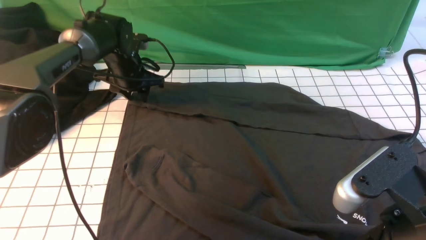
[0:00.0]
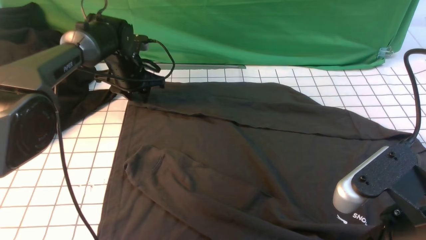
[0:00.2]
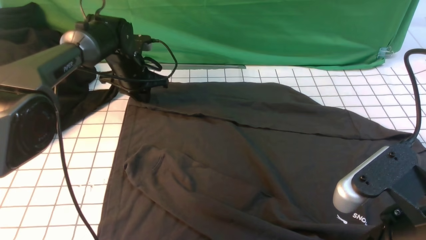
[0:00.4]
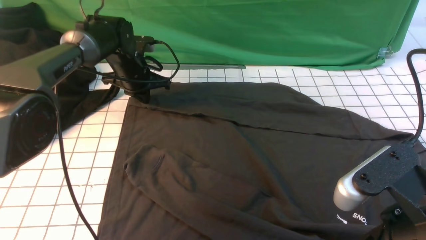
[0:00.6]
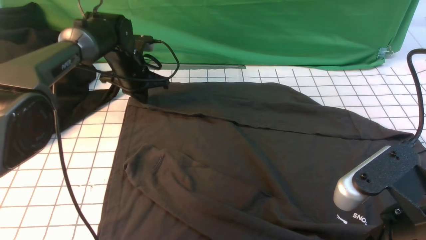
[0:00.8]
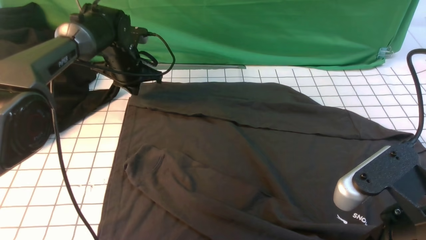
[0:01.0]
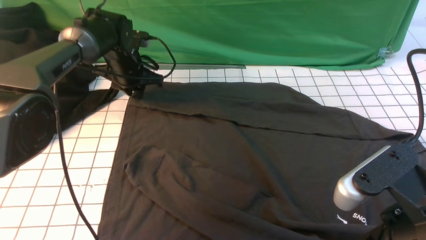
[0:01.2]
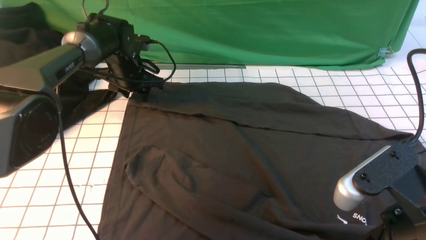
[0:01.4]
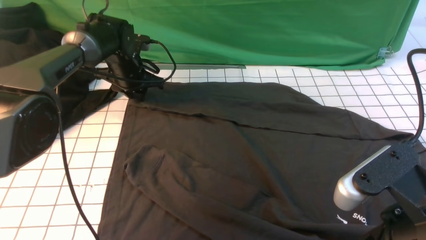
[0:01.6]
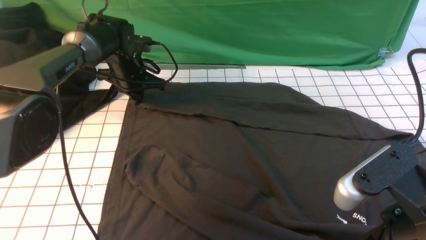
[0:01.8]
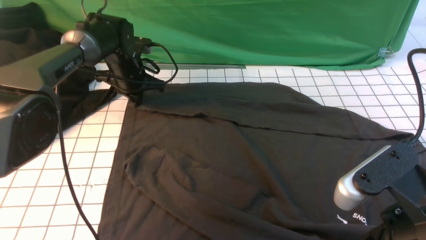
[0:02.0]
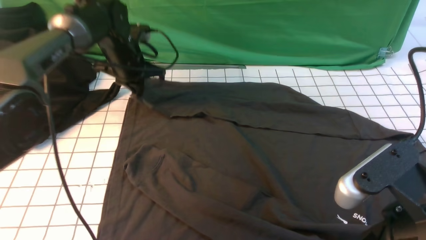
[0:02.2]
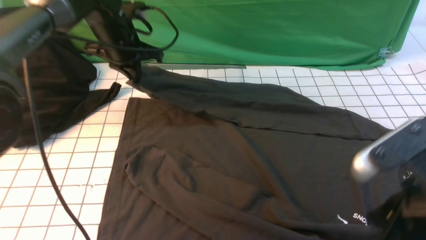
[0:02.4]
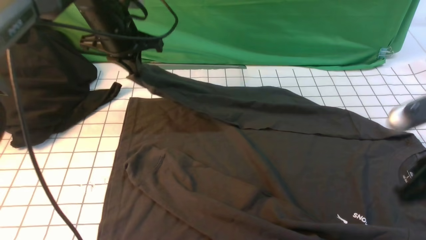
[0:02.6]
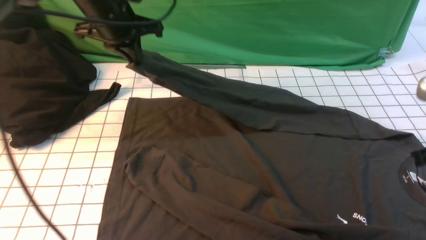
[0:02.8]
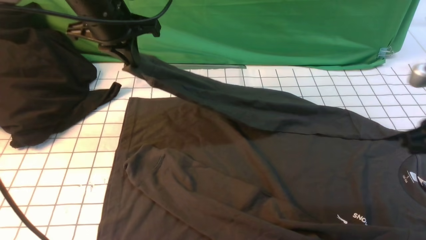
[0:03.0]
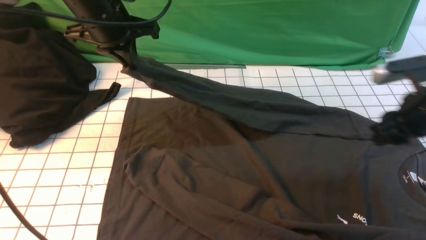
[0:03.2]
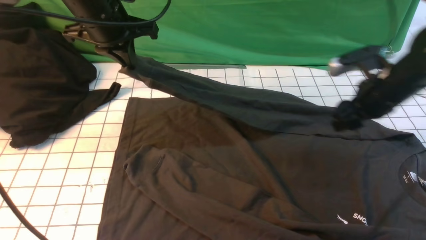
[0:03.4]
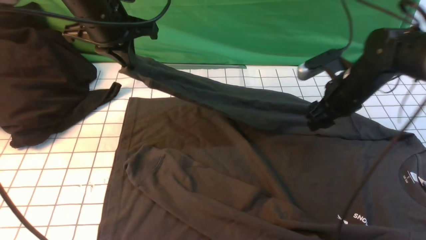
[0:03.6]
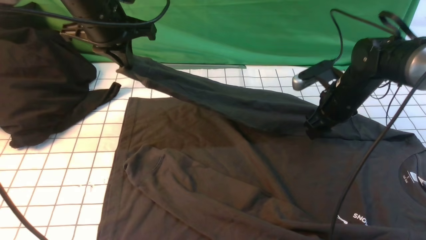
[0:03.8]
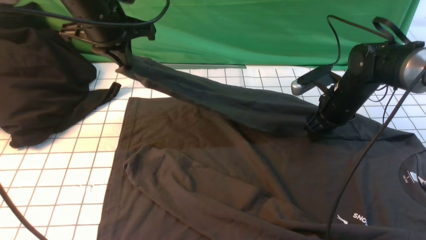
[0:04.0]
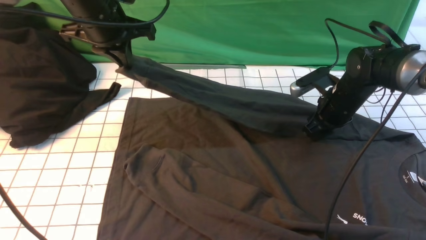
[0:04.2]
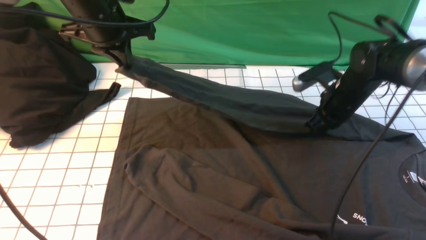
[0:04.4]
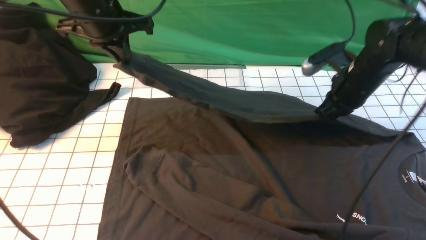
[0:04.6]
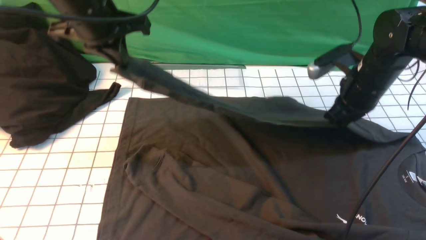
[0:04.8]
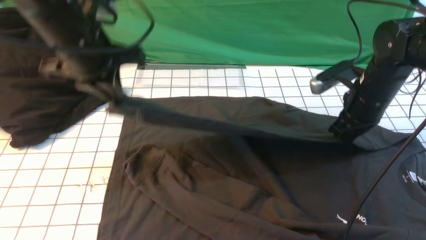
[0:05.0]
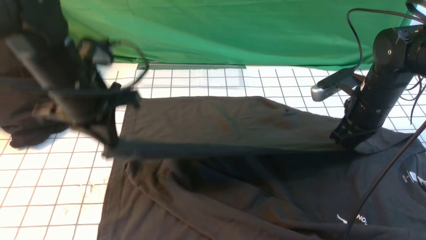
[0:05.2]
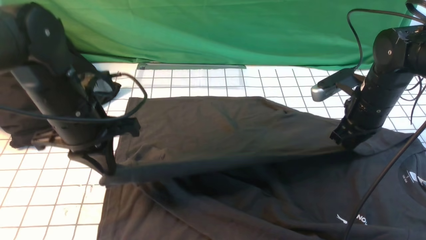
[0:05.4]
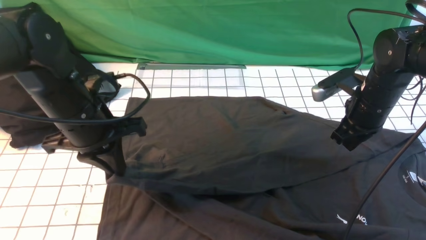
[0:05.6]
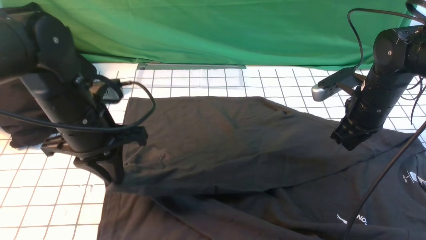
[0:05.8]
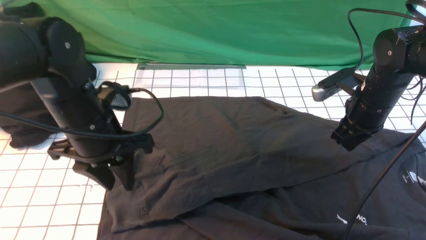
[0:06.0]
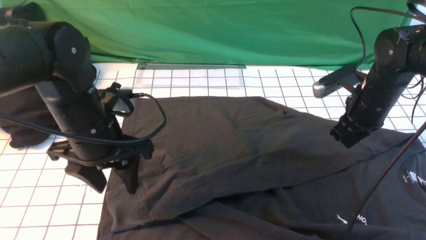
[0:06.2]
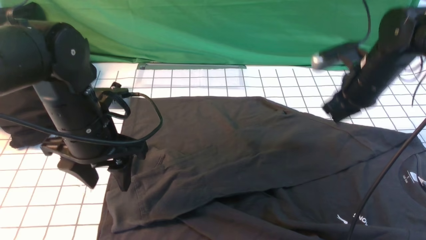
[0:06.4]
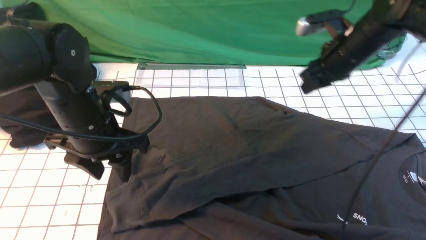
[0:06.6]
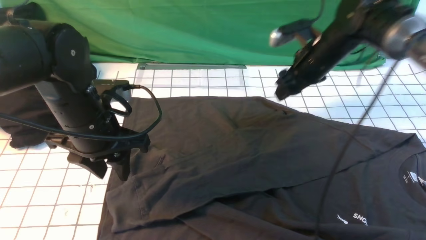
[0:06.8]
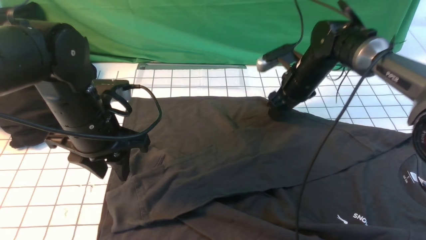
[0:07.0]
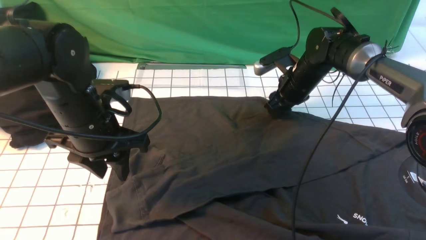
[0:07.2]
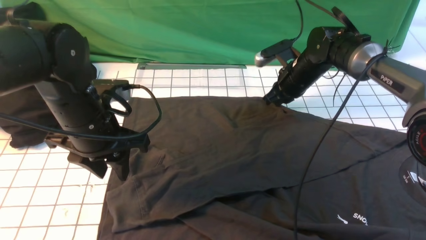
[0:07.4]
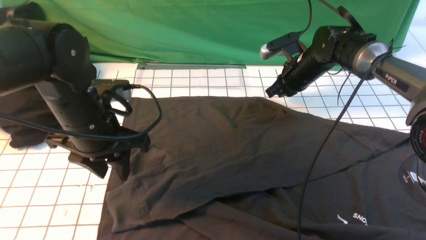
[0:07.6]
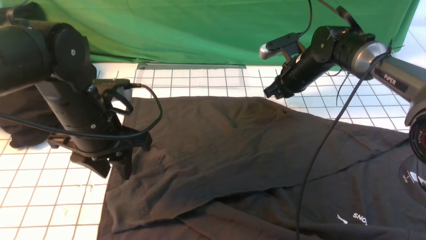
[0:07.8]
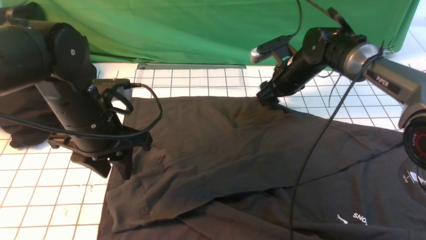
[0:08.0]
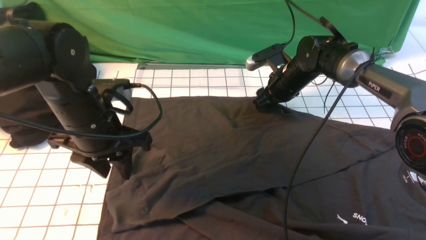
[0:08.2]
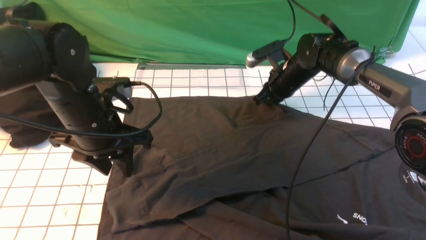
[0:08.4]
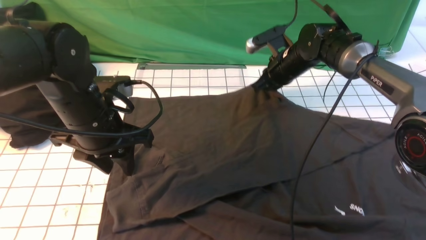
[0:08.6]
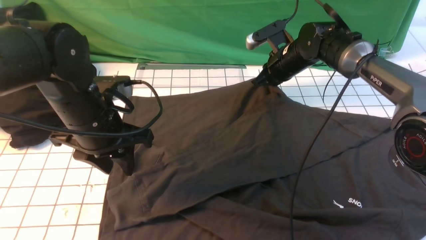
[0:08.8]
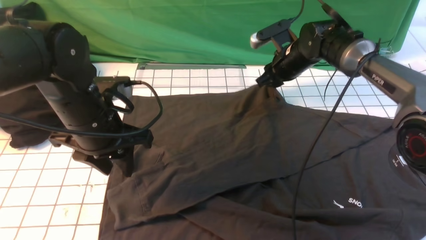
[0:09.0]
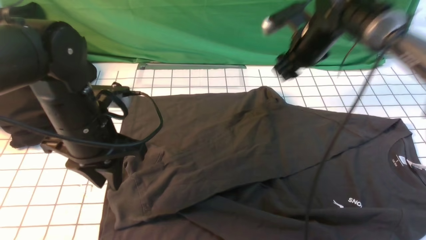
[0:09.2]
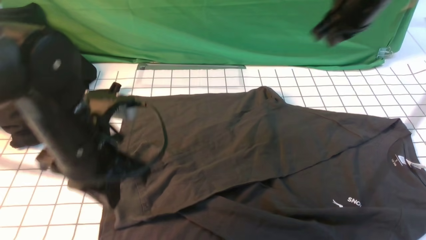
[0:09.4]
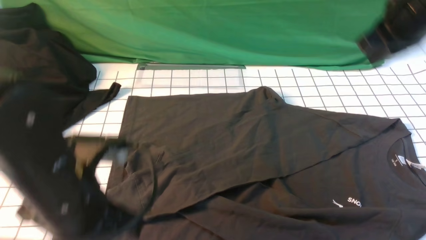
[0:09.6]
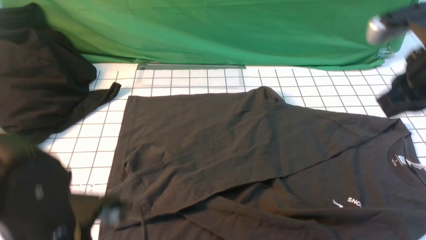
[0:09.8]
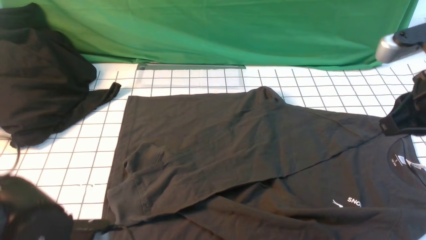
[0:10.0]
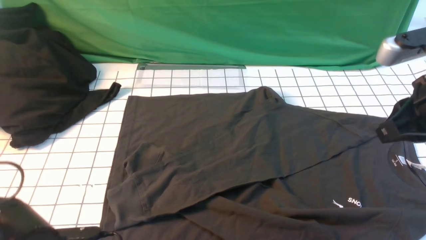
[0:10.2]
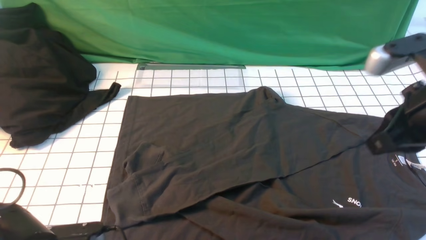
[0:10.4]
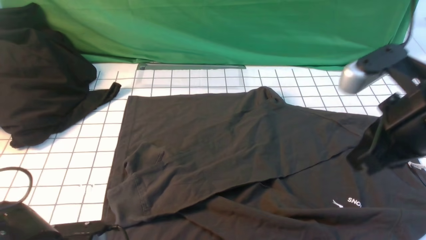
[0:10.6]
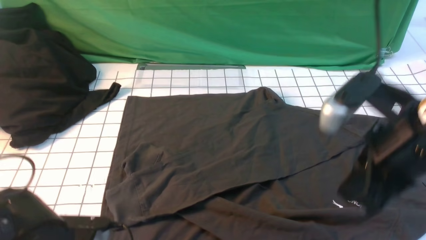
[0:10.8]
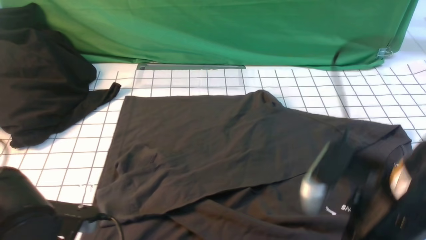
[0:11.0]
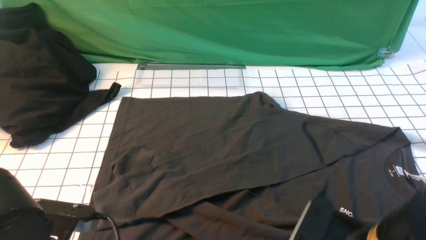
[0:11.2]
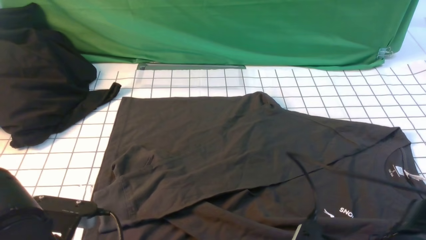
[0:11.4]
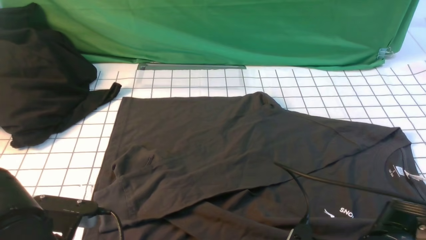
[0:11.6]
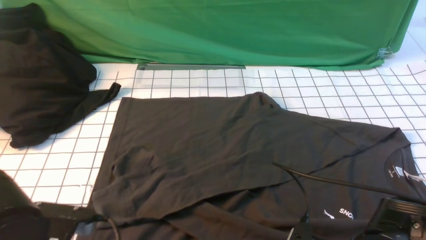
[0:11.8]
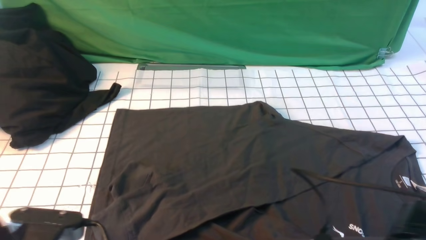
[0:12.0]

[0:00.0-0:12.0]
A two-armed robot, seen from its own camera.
Step, 0:02.0 to 0:05.8: use the left arm to drag and drop the cuff onto the cuff closest to the left arm.
Step, 0:06.0 to 0:11.6: use both arms simultaneously to clamp the lower edge of the clothing fabric.
0:00.0 to 0:01.6: The left gripper closes, then opens again.
0:01.6 to 0:03.0: The left gripper is displaced upward and backward by some 20 cm, and closes up. Meanwhile the right gripper travels forward and to the right by approximately 20 cm.
0:03.0 to 0:04.4: The right gripper shifts approximately 20 cm forward, downward and to the left, and opens and closes again.
0:04.4 to 0:06.0: The left gripper heads backward and downward, covering about 15 cm, and opens its fingers.
0:06.0 to 0:07.6: The right gripper goes approximately 15 cm forward and to the left, and opens, then closes again.
0:07.6 to 0:09.0: The right gripper opens.
0:09.0 to 0:10.4: The left gripper moves backward and downward, roughly 20 cm, and opens up. The right gripper heads backward and upward, covering about 30 cm, and closes up.
0:10.4 to 0:12.0: The right gripper is displaced downward and backward by approximately 20 cm, and opens and closes again. The left gripper goes some 5 cm upward, and closes its fingers.

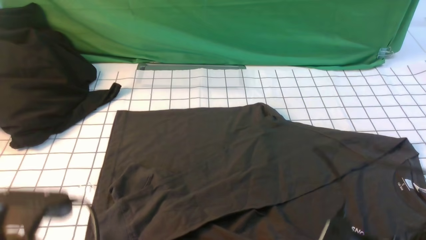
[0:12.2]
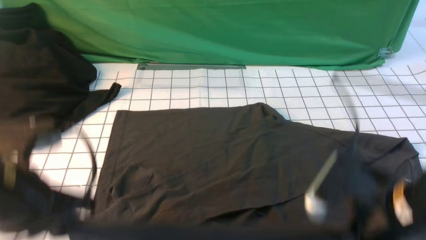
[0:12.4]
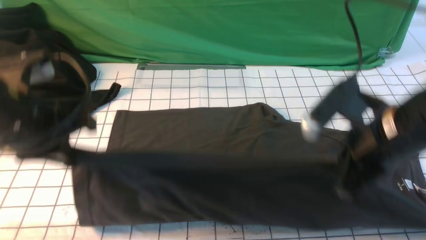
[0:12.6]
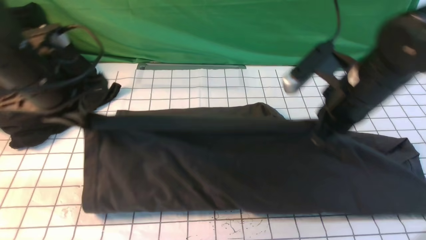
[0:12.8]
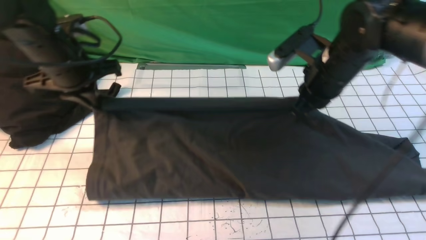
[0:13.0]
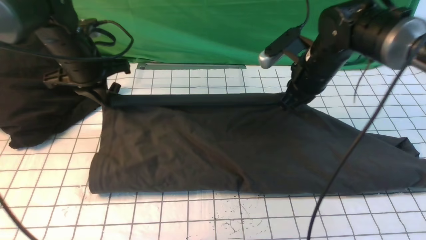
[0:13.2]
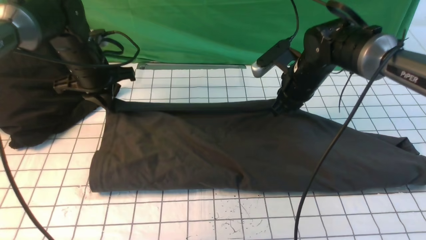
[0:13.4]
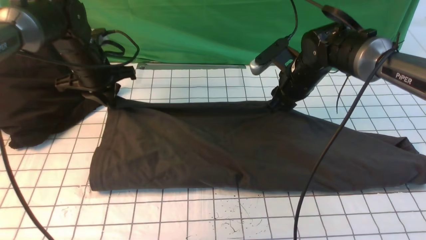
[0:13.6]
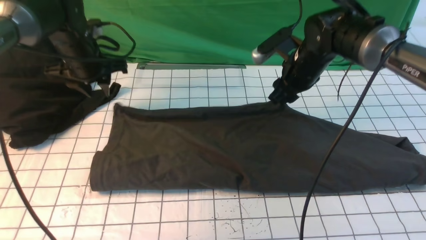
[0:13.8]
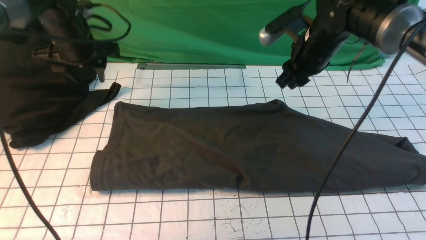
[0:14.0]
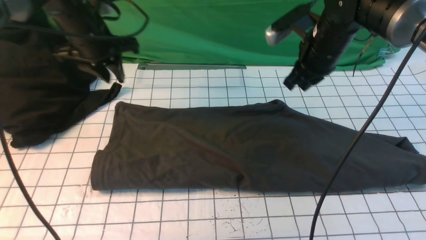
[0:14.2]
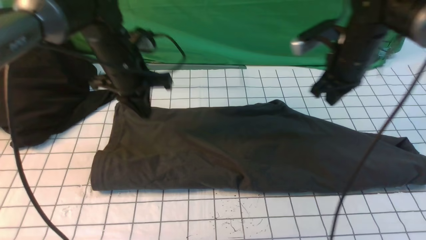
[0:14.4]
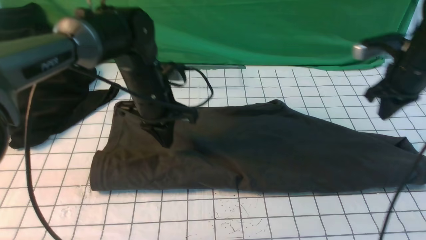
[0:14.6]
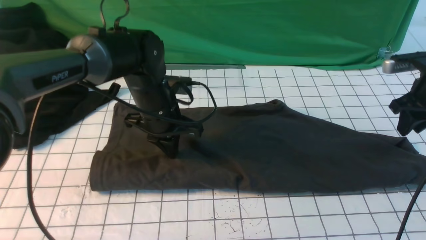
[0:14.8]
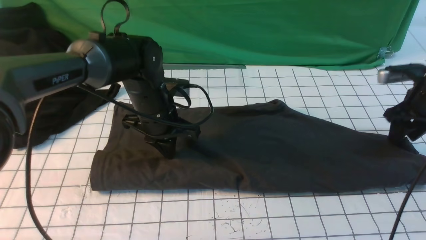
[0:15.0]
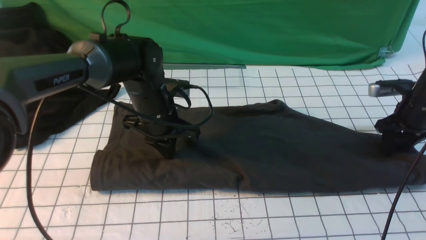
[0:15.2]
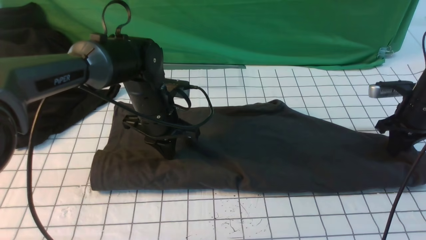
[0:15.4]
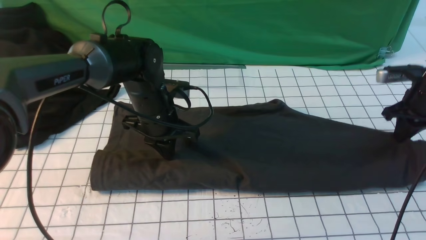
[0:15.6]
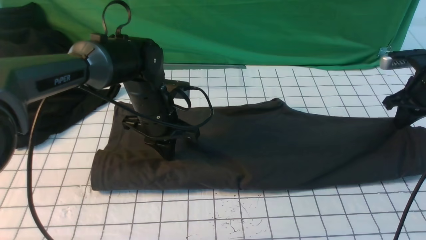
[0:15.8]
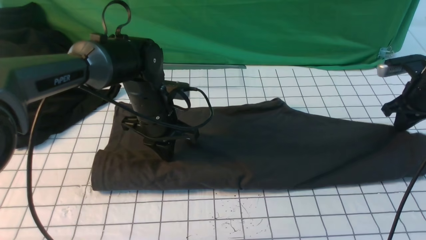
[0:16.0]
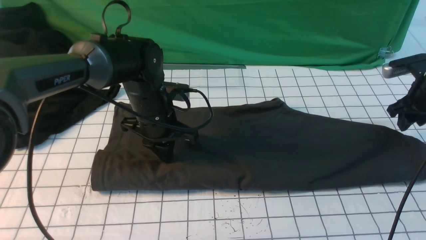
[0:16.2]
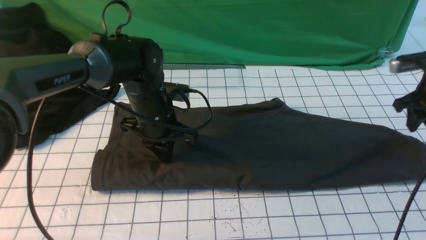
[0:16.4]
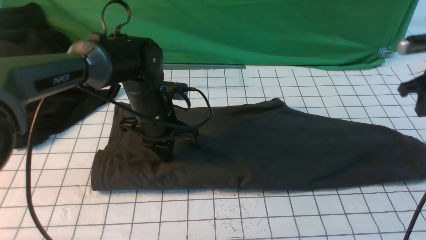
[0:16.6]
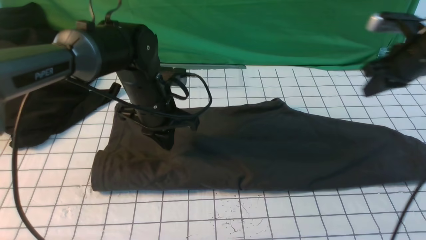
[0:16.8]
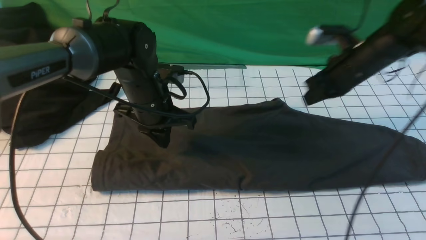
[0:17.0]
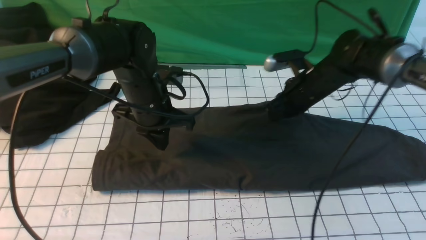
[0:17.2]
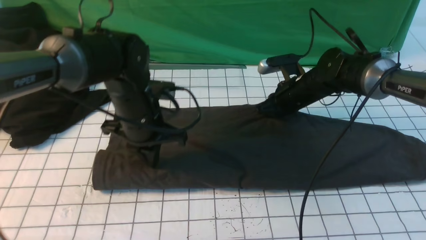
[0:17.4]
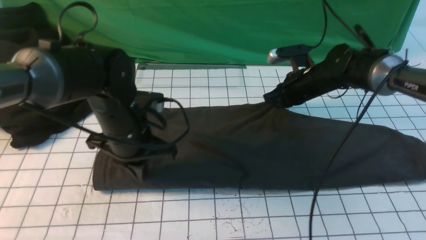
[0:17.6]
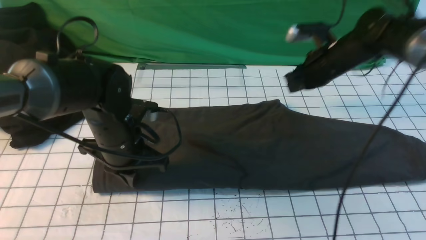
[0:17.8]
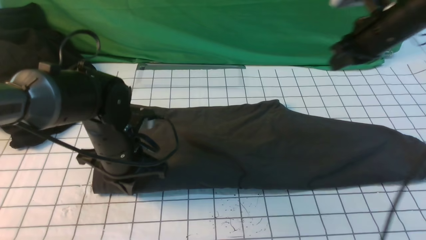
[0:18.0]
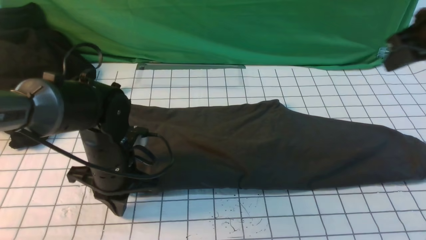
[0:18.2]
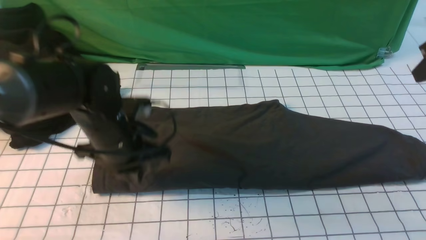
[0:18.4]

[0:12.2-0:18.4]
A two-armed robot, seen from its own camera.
Step, 0:12.2 to 0:13.6: use both arms to drag the lower edge of the fabric forward and fold it over the upper edge.
0:12.2 to 0:13.8: Both grippers travel together forward, roughly 35 cm. The right gripper opens its fingers, while the left gripper opens its fingers.
0:13.8 to 0:15.4: The right gripper is displaced to the right by roughly 20 cm, and closes its fingers, while the left gripper heads to the right, backward and downward, covering some 15 cm, and closes its fingers.
0:15.4 to 0:16.8: The right gripper heads to the left and upward, covering roughly 10 cm.
0:16.8 to 0:18.4: The right gripper moves upward and backward, approximately 10 cm, while the left gripper shifts roughly 5 cm backward.
